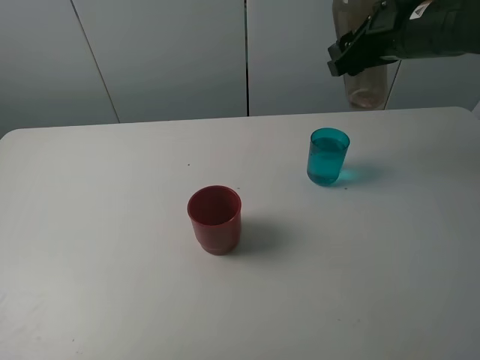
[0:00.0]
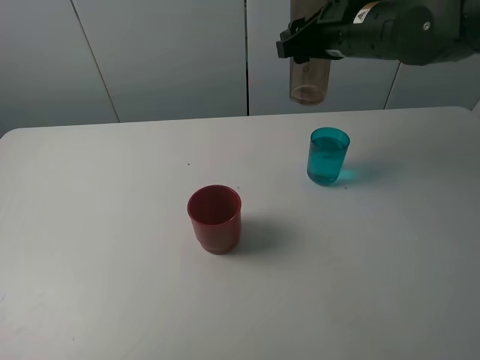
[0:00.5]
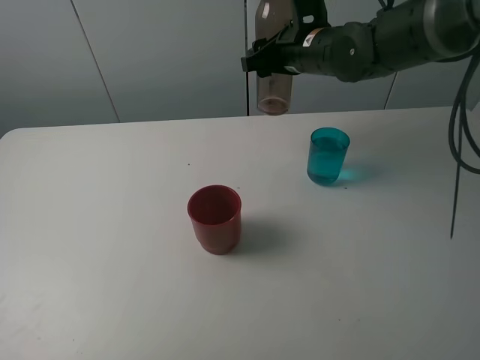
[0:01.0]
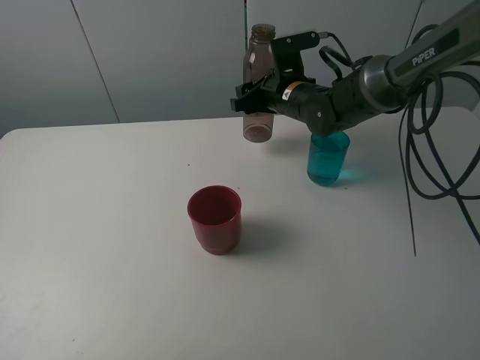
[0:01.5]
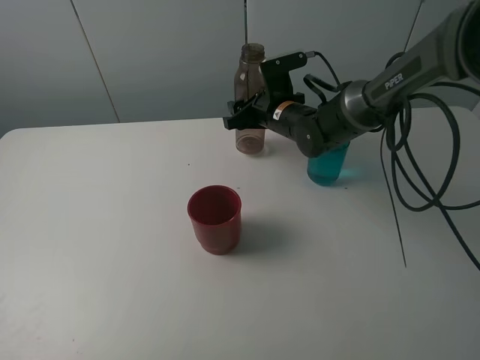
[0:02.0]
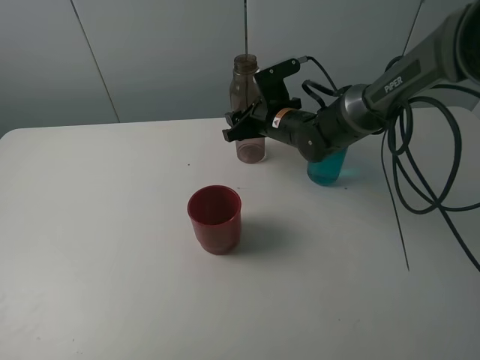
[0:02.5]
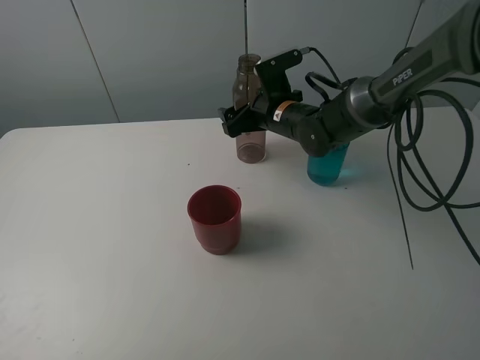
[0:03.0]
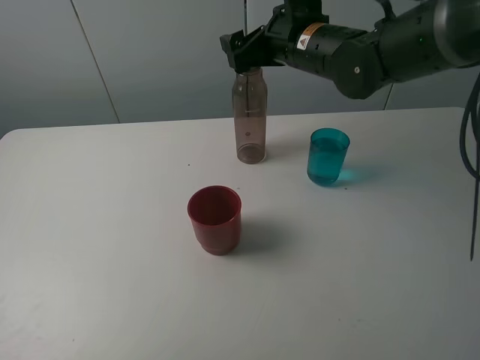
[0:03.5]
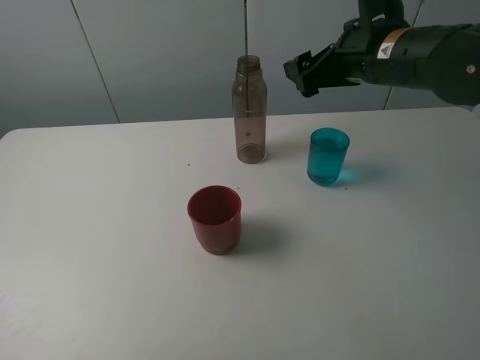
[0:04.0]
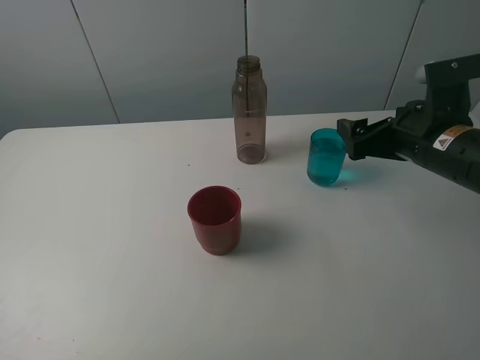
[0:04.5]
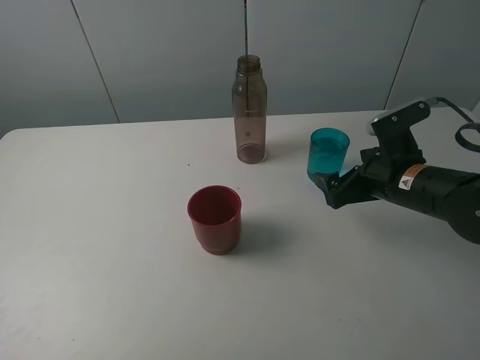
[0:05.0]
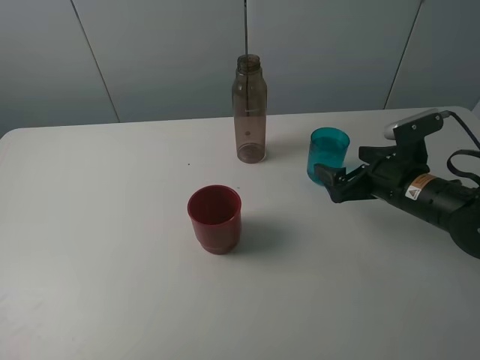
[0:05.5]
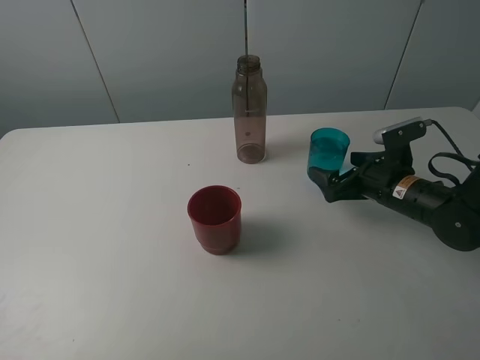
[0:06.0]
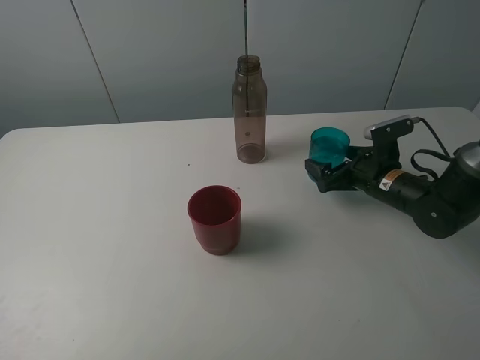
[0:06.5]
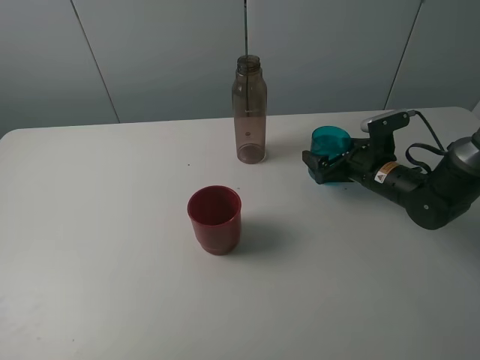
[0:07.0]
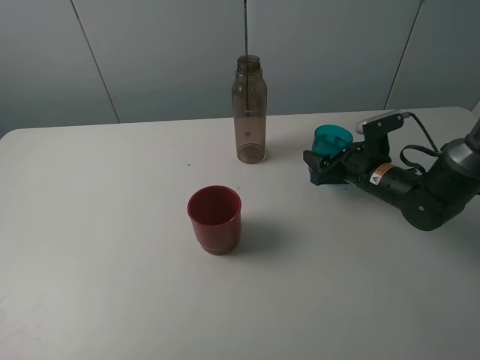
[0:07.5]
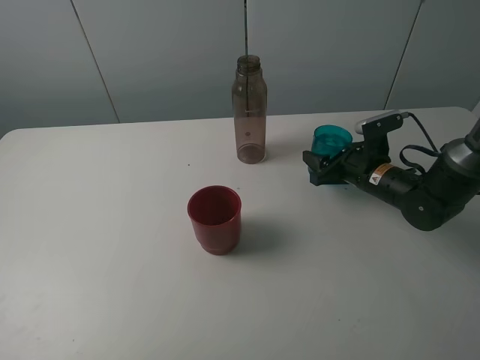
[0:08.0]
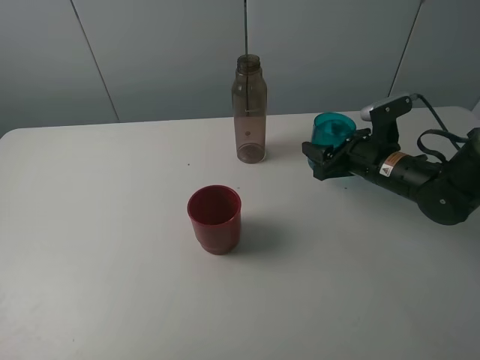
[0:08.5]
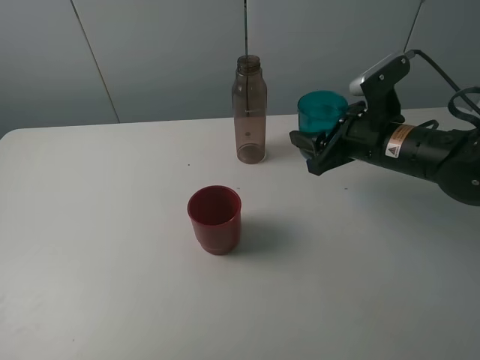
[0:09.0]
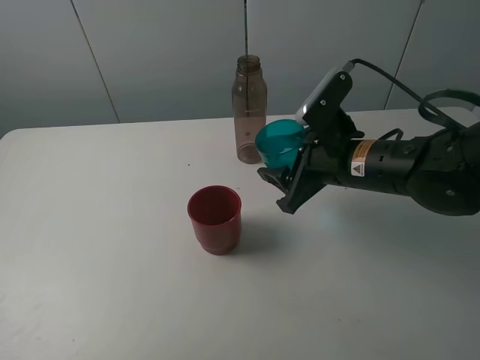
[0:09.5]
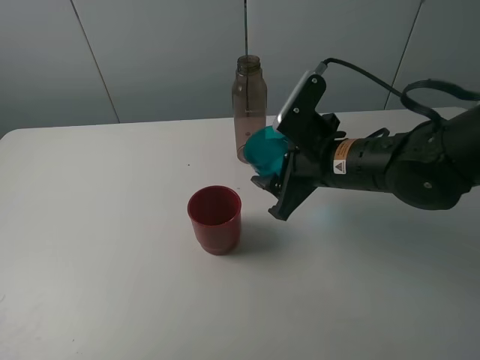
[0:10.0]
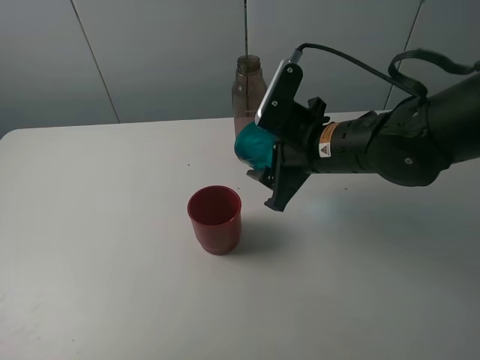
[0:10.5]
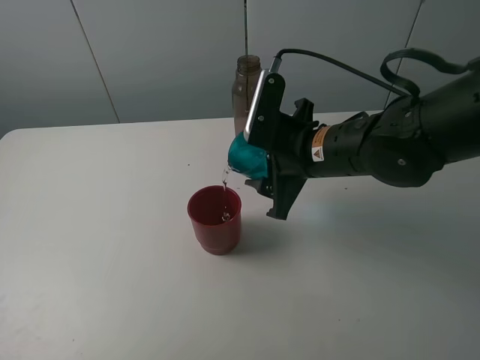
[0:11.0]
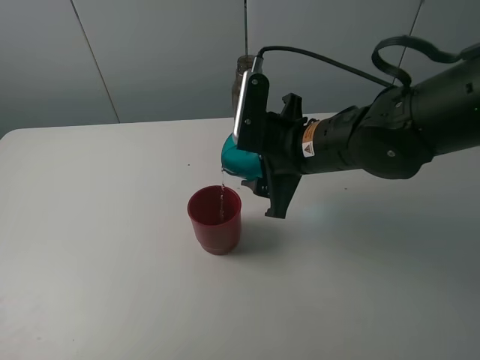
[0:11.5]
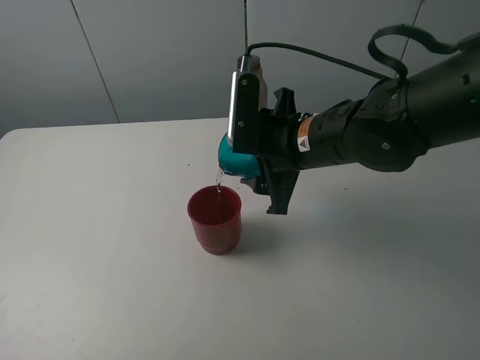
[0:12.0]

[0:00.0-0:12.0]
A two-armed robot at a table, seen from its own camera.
Task of the whole recording: pick up the bottle and pour water into the cup, then pick up the cup containing water and pour it into another cup.
Step, 0:00.0 to 0:03.0: Place the brown bottle with the right gripper.
Step, 0:03.5 to 0:07.5: Grasp the blue cup with the right gripper.
0:00.0 to 0:02.0: The right gripper moves downward, to the left and forward, approximately 20 cm.
0:02.0 to 0:04.0: The right gripper is displaced upward, backward and to the right by some 20 cm, and opens up.
0:04.0 to 0:06.0: The right gripper heads downward, covering approximately 20 cm.
0:06.0 to 0:08.0: The right gripper closes.
0:08.0 to 0:10.0: The right gripper goes about 15 cm upward, to the left and backward.

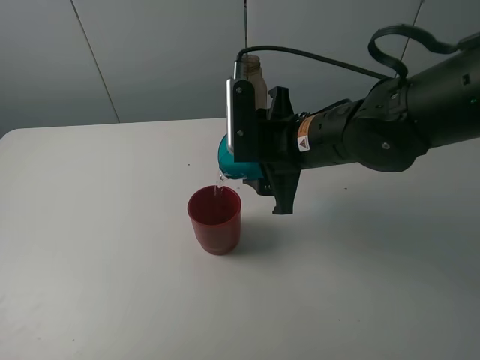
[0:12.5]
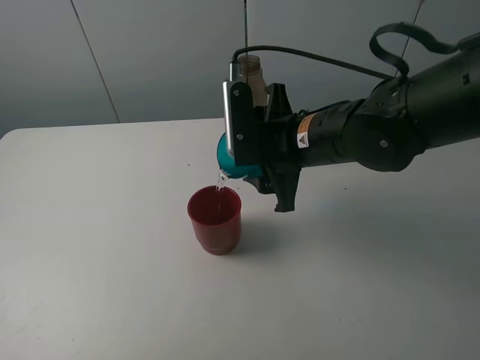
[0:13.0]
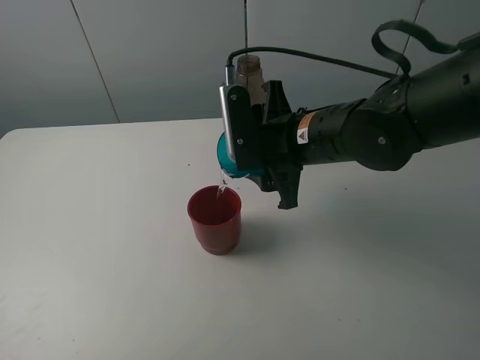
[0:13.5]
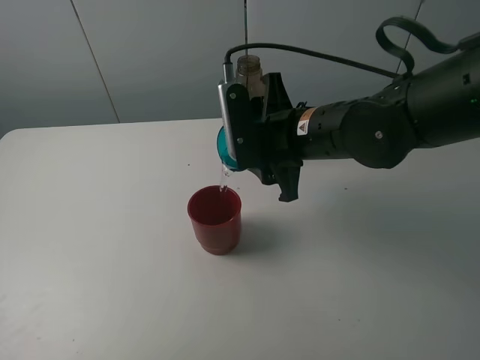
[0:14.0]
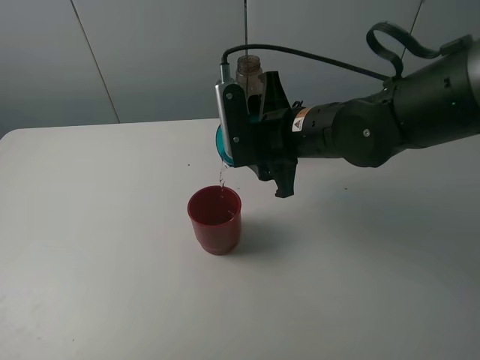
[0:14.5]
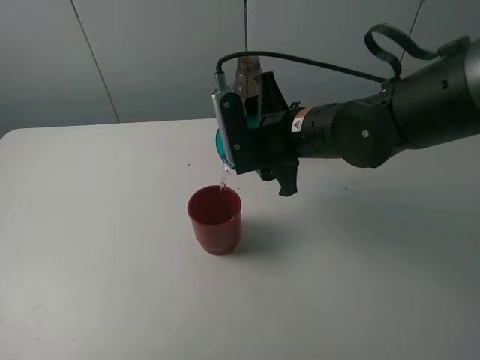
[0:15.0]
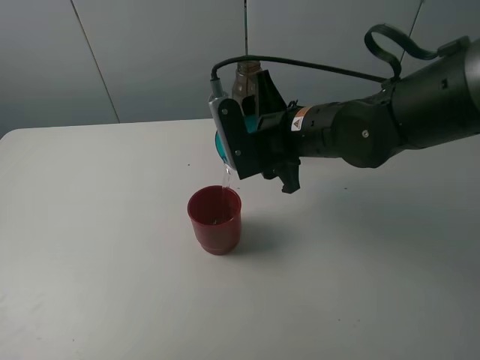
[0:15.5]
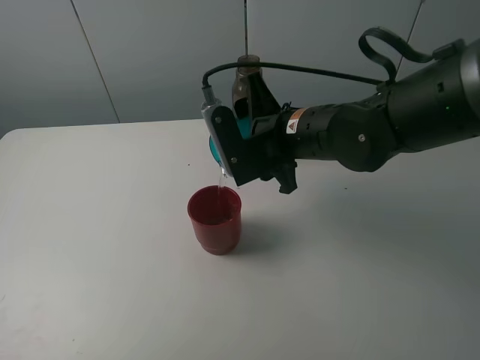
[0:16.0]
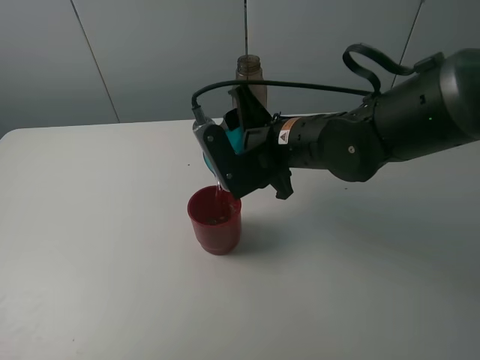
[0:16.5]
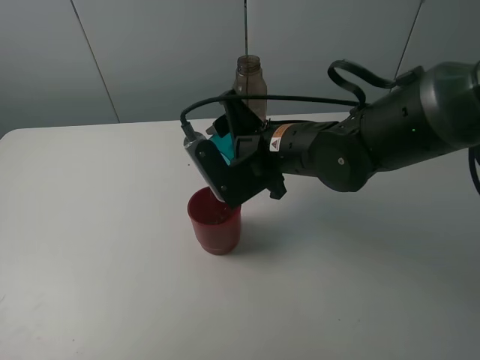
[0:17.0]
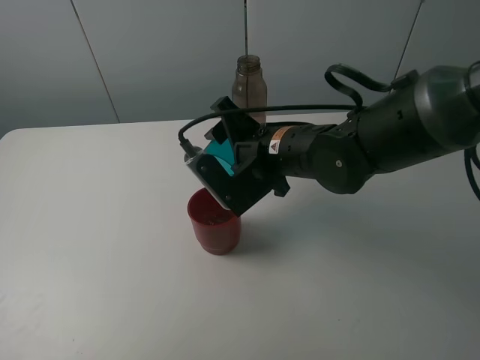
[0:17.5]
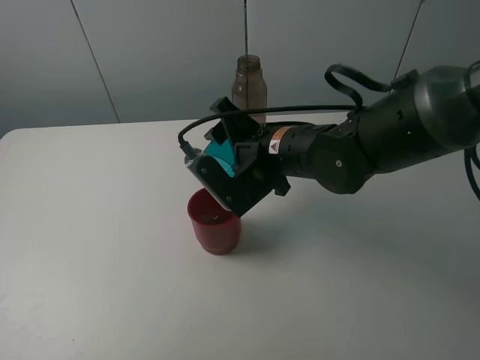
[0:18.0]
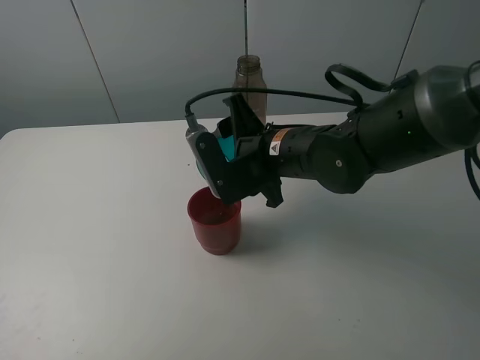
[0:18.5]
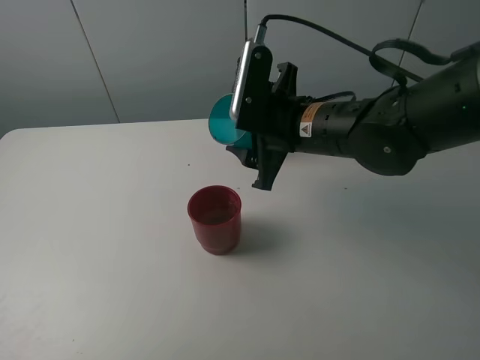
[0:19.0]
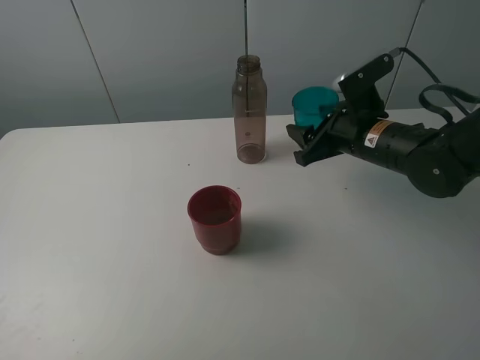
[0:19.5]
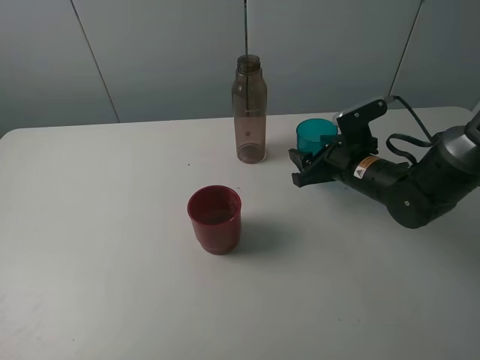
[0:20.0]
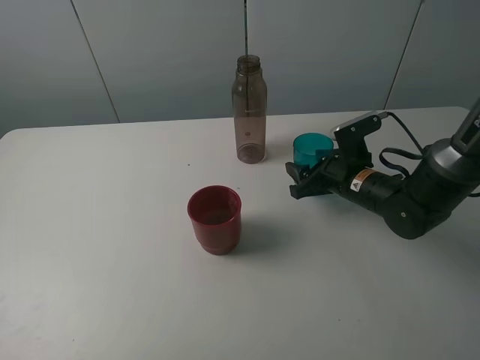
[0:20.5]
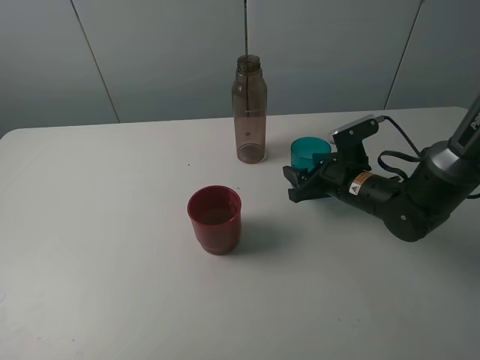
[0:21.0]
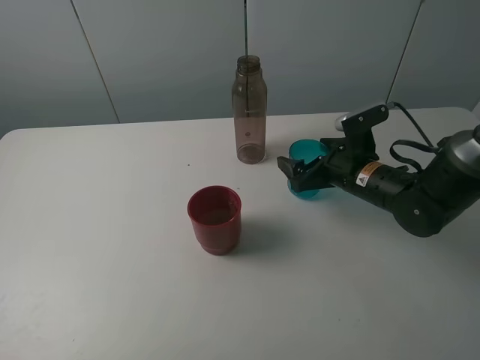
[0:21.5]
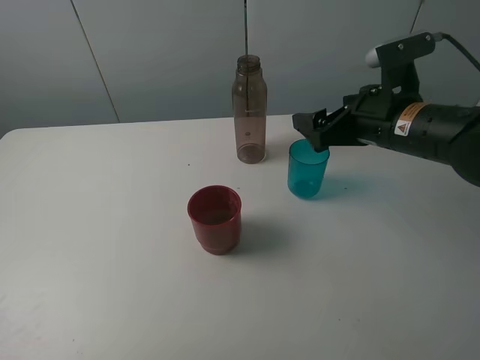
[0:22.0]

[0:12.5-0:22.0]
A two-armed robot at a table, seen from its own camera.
Task of the whole recording: pick up the bottle and pour water into the cup, then pick up the cup containing water and pour it into another cup.
Step, 0:12.5 to 0:18.5: Pour water from blue cup to red cup with the right gripper.
Step, 0:19.0 to 0:21.5: Place the blue cup with the right gripper.
0:12.5 to 0:14.5: The grippers move only a little.
0:14.5 to 0:16.5: The grippers stay close to where they were, moving slightly.
0:16.5 to 0:18.0: The grippers stay close to where they were, moving slightly.
0:18.0 to 0:20.0: The right gripper moves to the right and downward, approximately 15 cm.
0:20.0 to 0:22.0: The right gripper is displaced upward by roughly 10 cm, and opens up.

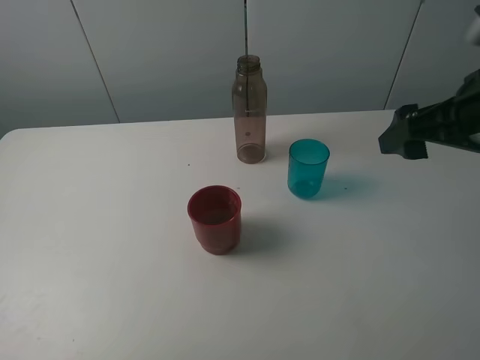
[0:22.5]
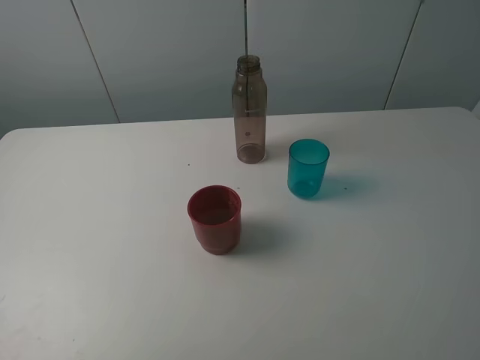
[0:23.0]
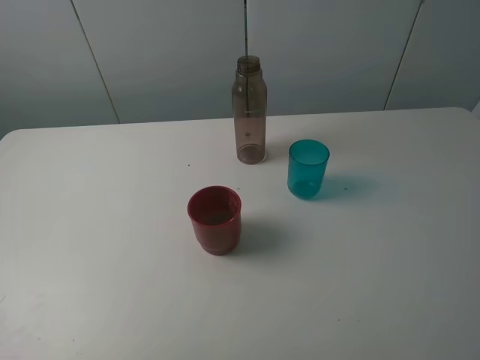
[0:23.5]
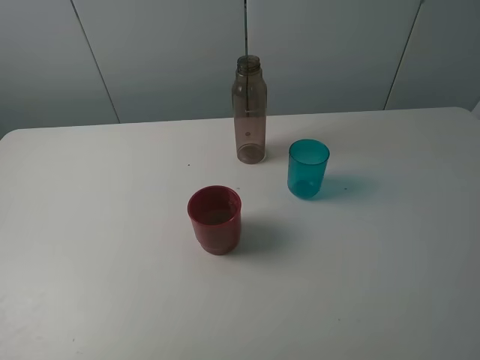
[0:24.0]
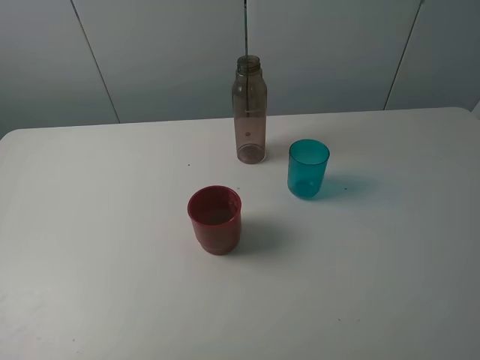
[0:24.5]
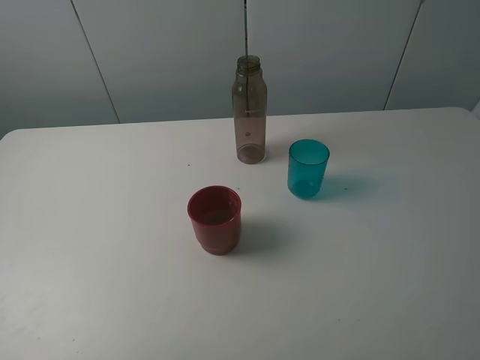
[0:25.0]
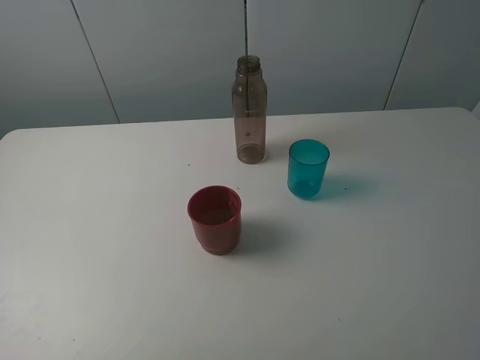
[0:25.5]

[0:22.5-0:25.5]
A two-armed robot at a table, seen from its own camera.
Task of the whole recording: pick up the bottle and pour water into the cup, then pick up the cup containing water and pour it into another cup.
0:22.5 to 0:24.0: The right gripper is displaced backward by some 20 cm.
